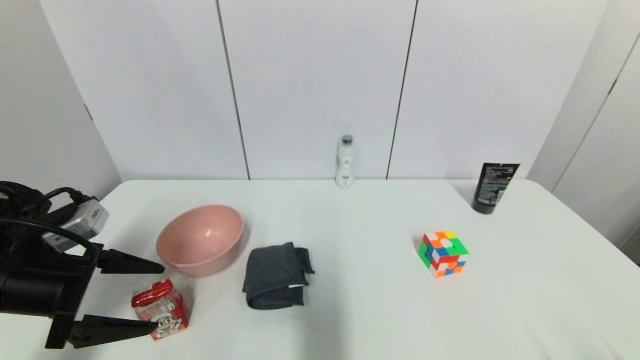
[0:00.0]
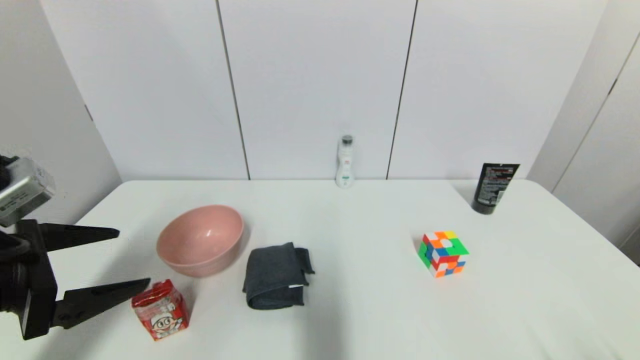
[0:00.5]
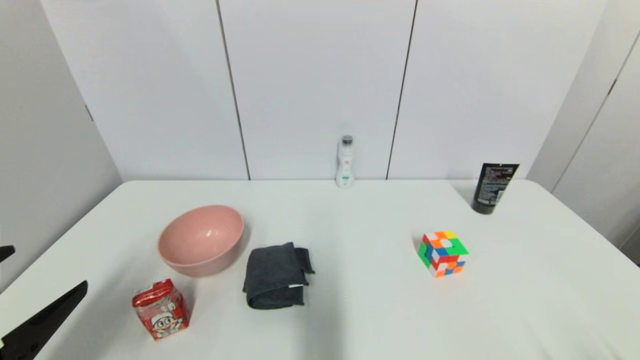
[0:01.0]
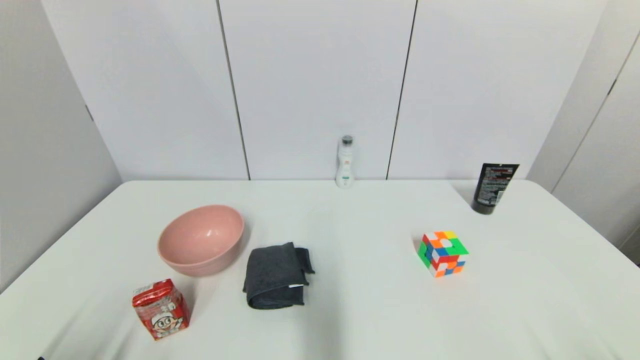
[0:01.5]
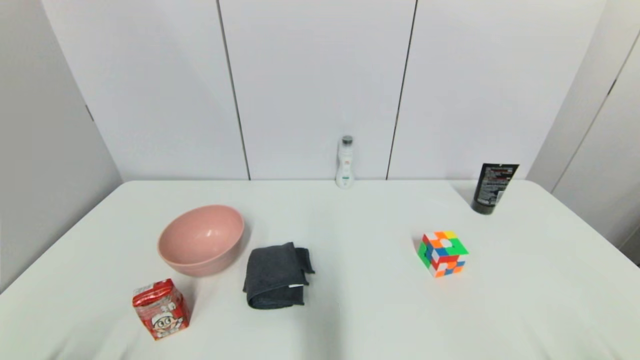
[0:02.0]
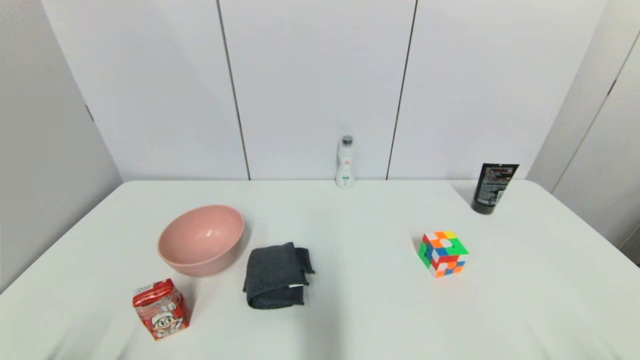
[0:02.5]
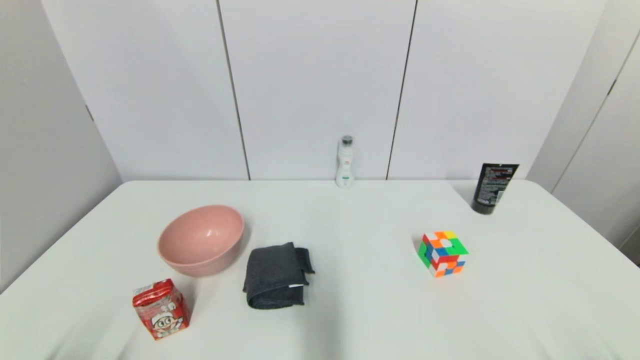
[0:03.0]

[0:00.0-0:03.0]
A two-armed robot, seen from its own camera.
0:00.0 to 0:01.5: The left gripper travels backward and downward by about 20 cm.
